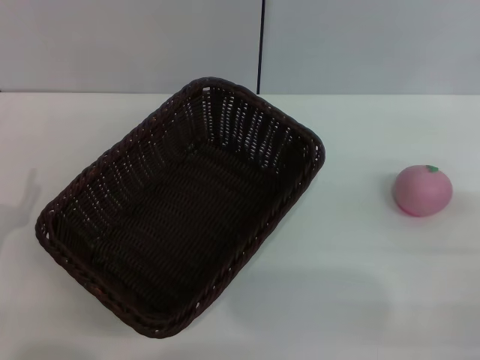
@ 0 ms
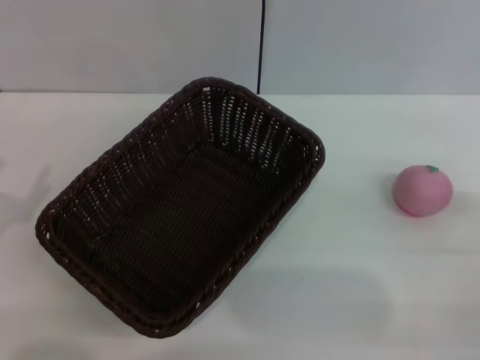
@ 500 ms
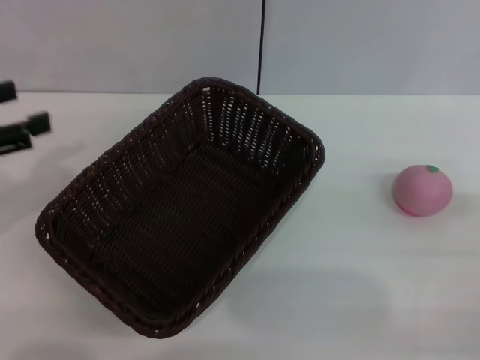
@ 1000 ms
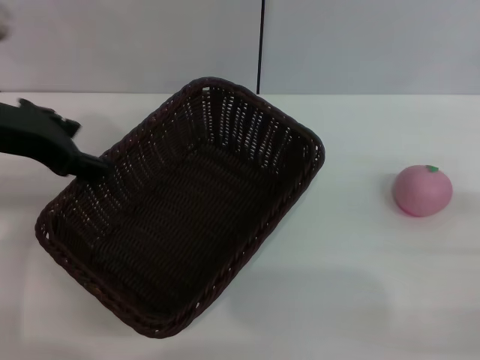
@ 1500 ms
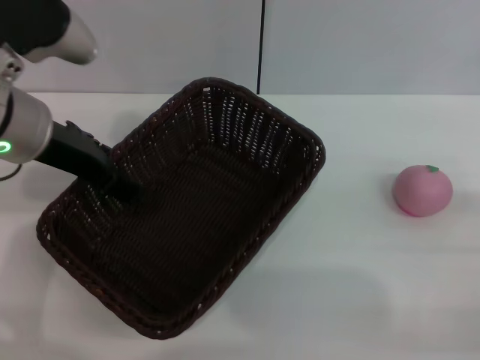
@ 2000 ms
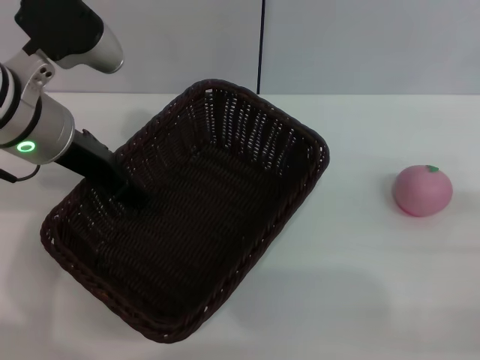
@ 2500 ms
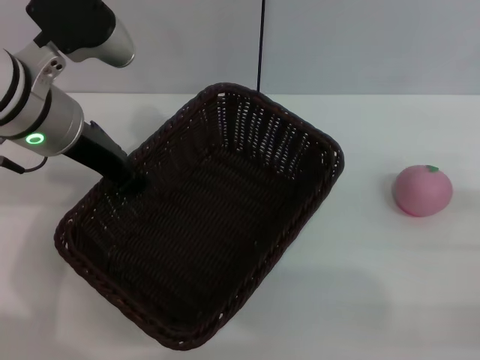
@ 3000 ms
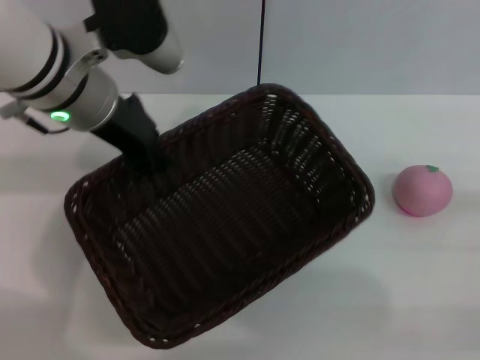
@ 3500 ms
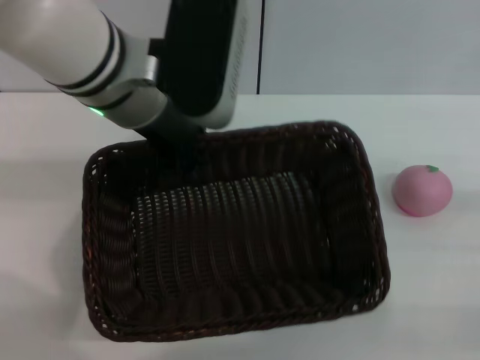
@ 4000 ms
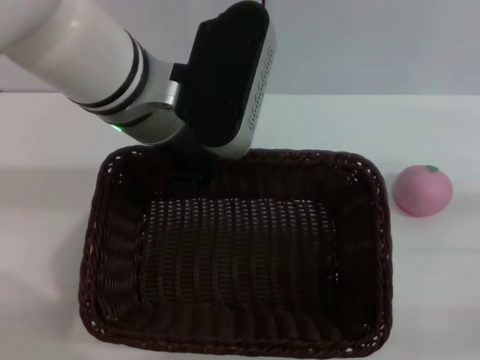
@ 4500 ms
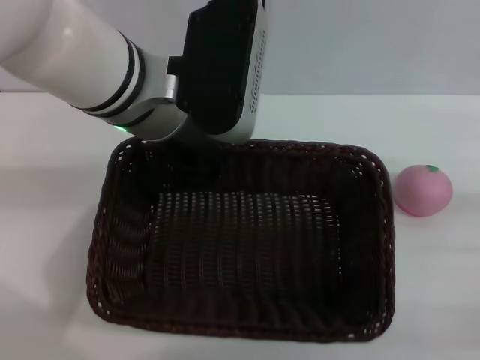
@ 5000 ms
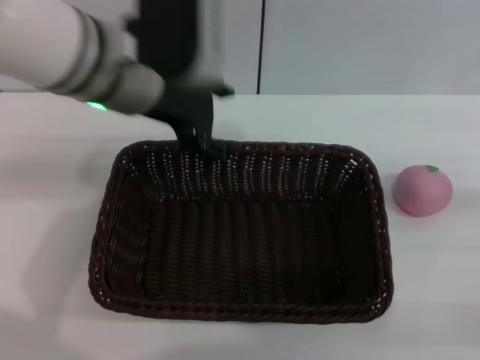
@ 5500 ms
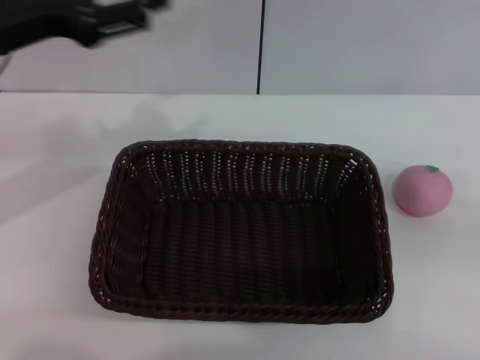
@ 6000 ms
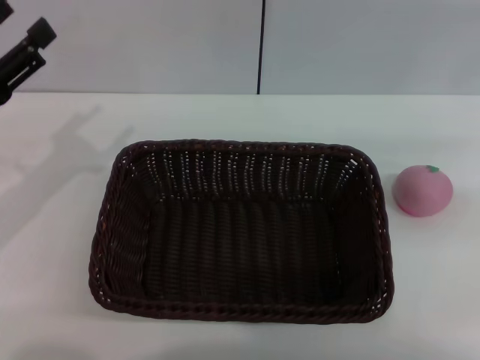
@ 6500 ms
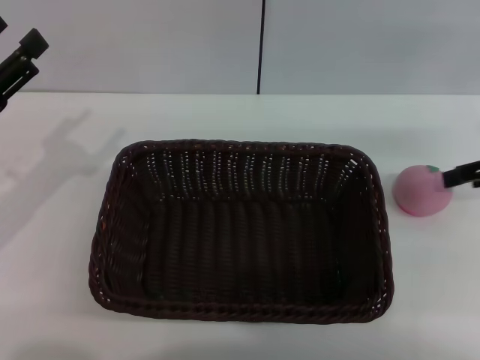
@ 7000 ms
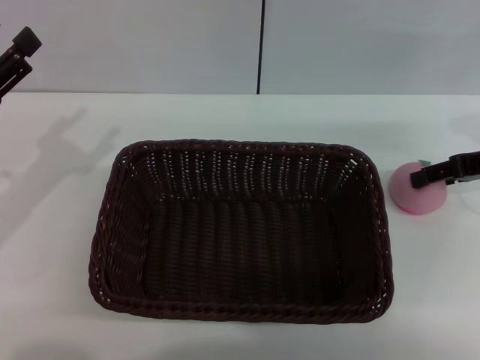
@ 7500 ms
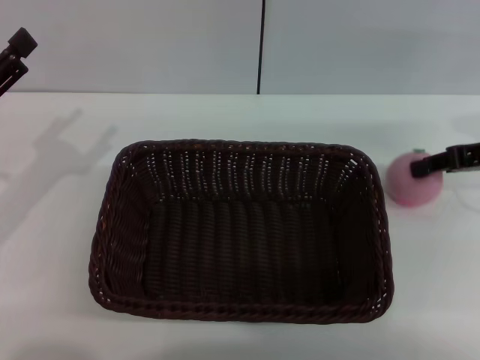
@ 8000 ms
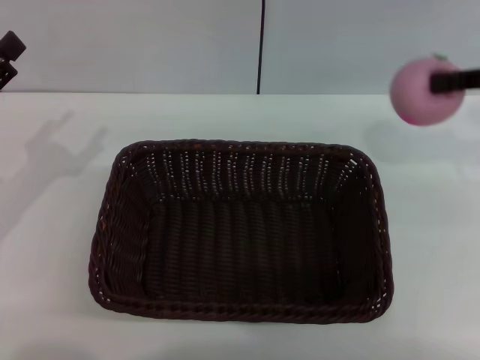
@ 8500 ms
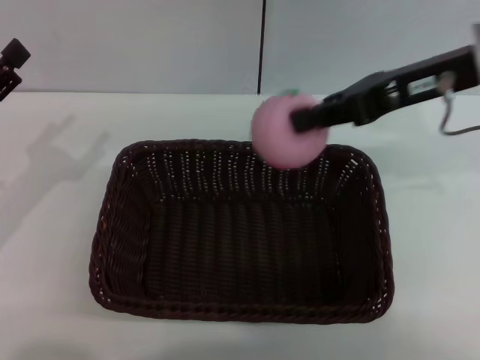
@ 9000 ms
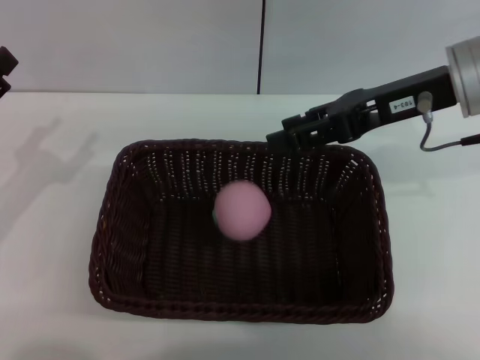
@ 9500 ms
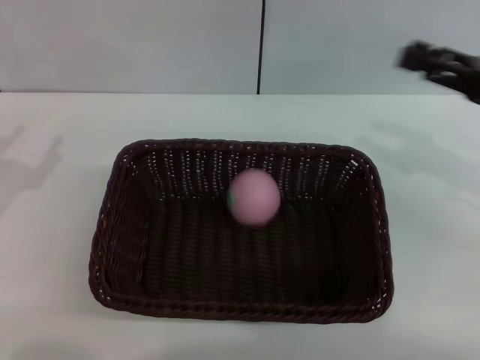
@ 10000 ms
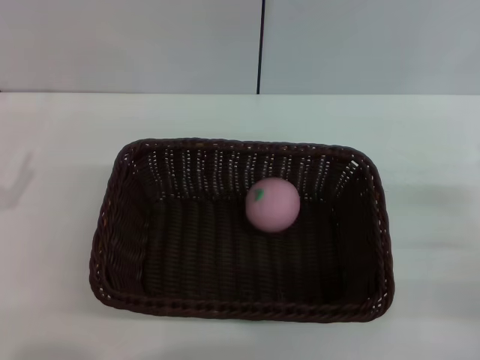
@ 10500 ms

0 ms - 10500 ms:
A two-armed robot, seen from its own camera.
Step, 0 ms - 4000 ms: Pick up the dark basket with the left gripper.
Step, 4500 ms - 5500 ms: Place the dark basket in the center of view with the right gripper.
Step, 6000 ms - 8000 ms: Pick up the peach with the left gripper.
0 ms - 2000 ms: The left gripper shifts approximately 25 cm upward, forward and to the right.
2000 ms - 4000 ms: The left gripper is displaced to the right by approximately 10 cm, and closes.
4000 ms - 6500 ms: The left gripper moves to the left and downward, about 25 cm, and opens up, while the right gripper is displaced upward and forward by roughly 20 cm.
6500 ms - 8500 ms: The right gripper goes about 10 cm to the left, reaches roughly 10 cm downward, then returns, and closes.
8500 ms - 10500 ms: The left gripper is displaced downward and backward by approximately 10 cm, while the right gripper shifts about 25 cm downward and backward, and opens up.

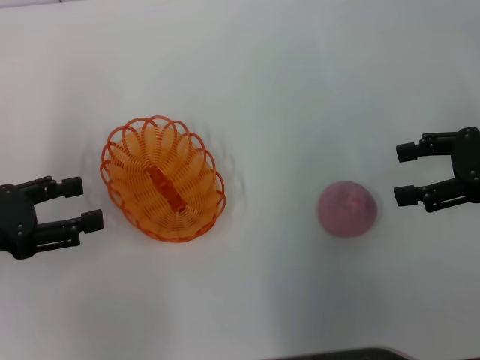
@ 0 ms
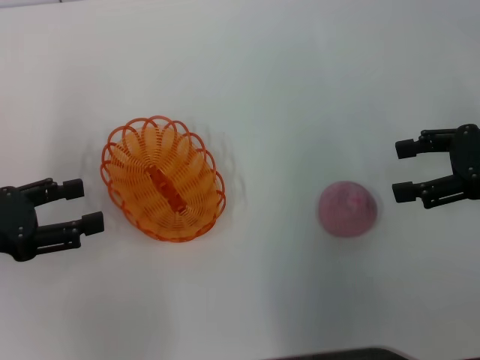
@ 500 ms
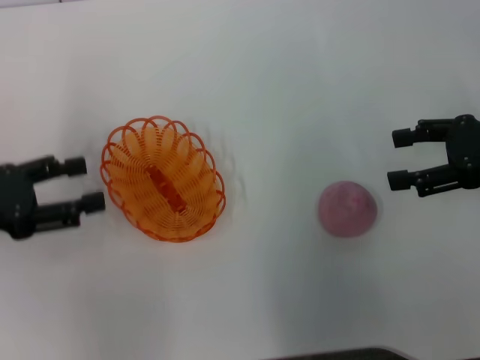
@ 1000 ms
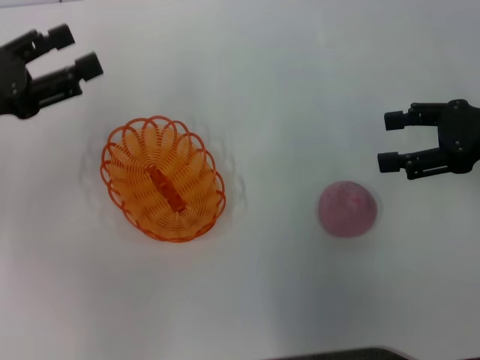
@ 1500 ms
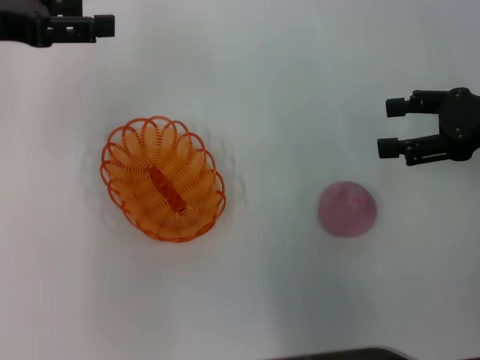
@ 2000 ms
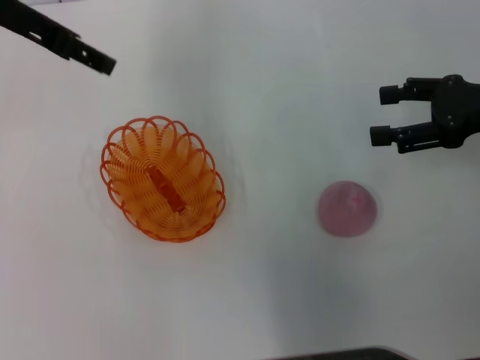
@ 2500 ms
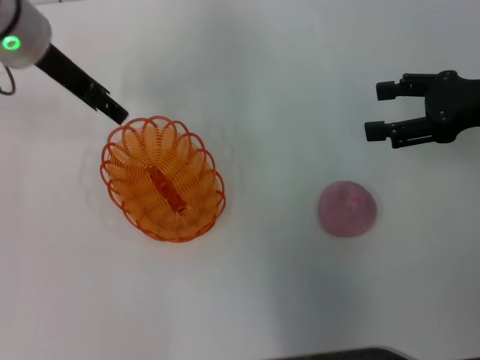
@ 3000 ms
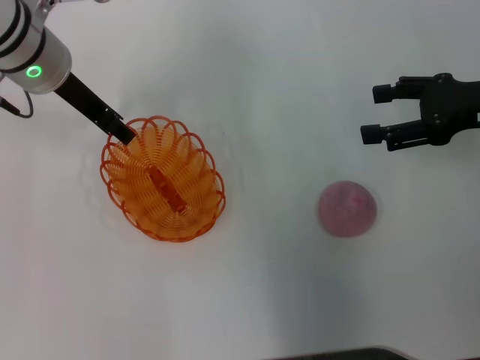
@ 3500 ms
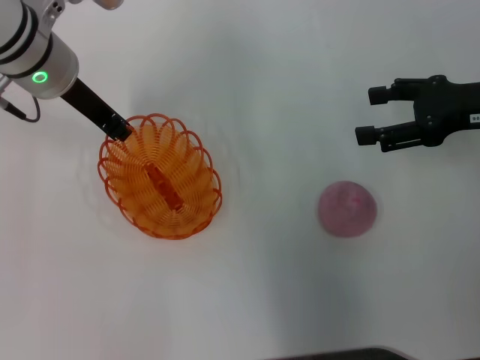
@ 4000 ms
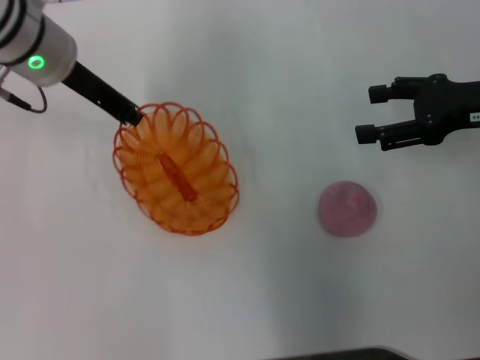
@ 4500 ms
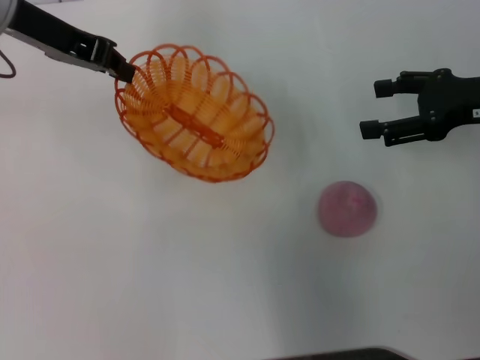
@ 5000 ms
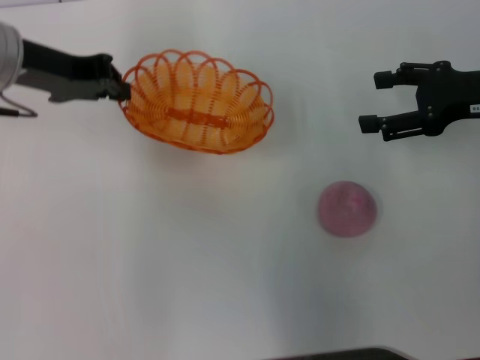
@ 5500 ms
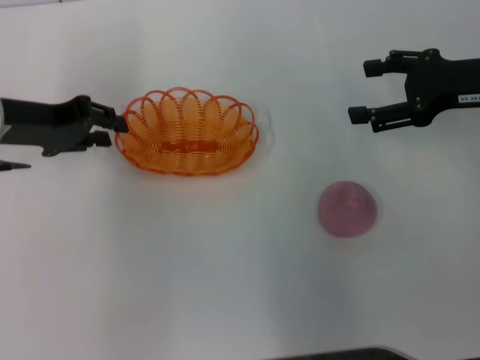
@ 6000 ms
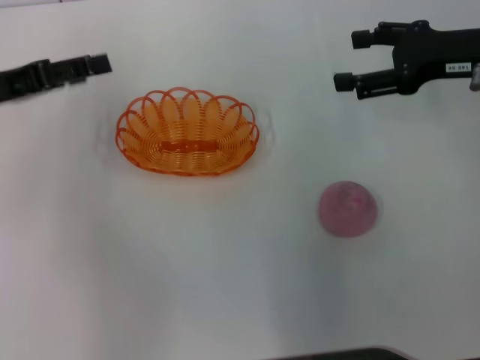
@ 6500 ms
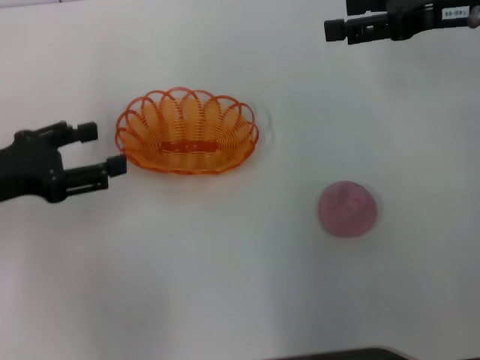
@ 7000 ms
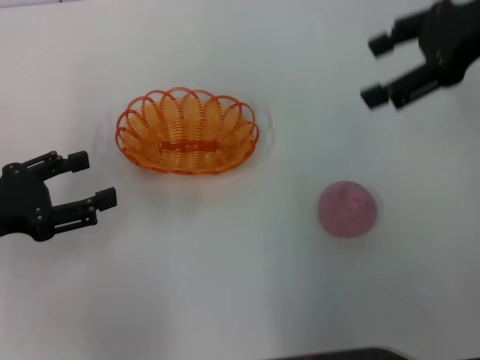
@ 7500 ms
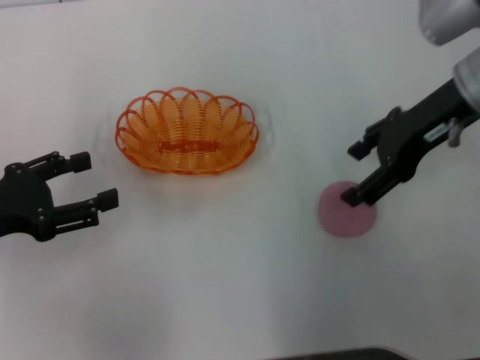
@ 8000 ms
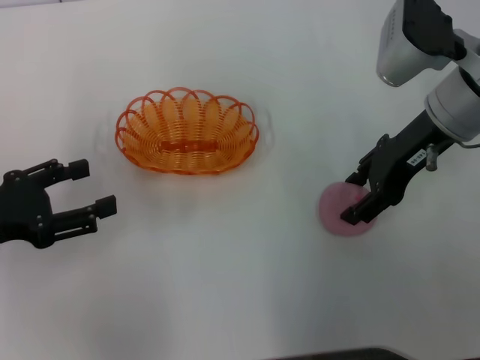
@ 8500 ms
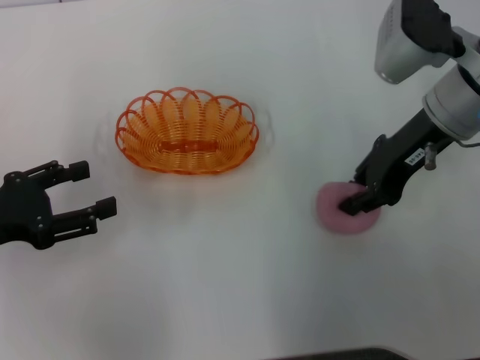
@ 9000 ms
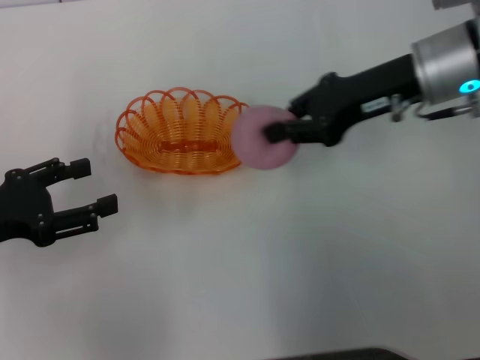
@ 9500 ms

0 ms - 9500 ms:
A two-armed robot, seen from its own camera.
Step, 0 ms - 4500 ms: Pick up the basket with the left gripper.
Step, 5000 ms - 6000 ms: Place the basket in the center of view with the left gripper.
Step, 6500 ms - 9000 ms: Pick up the peach with the right gripper.
0 ms - 2000 ms: The left gripper is displaced forward and upward by approximately 20 cm.
2000 ms - 4000 ms: The left gripper travels to the right and downward by approximately 10 cm, and closes up.
4000 ms - 5500 ms: The left gripper shifts some 5 cm to the left, and closes.
5500 ms - 7500 ms: The left gripper moves backward, to the left and downward, roughly 20 cm, and opens up. The right gripper shifts about 10 cm upward.
7500 ms - 9500 ms: The right gripper shifts approximately 10 cm downward and to the left, and closes its fingers.

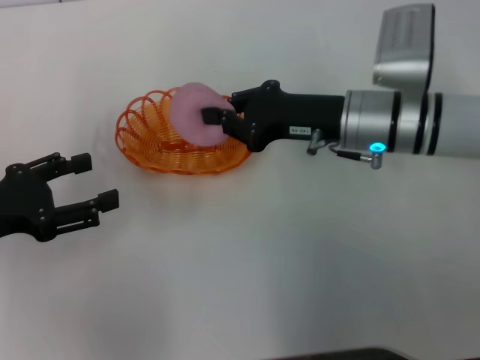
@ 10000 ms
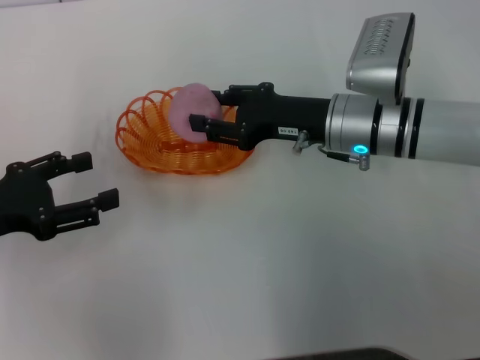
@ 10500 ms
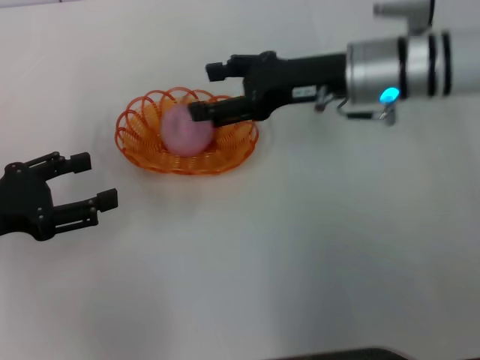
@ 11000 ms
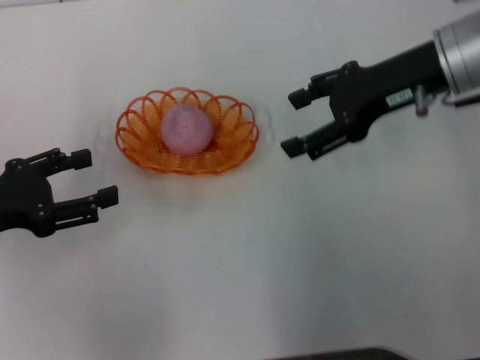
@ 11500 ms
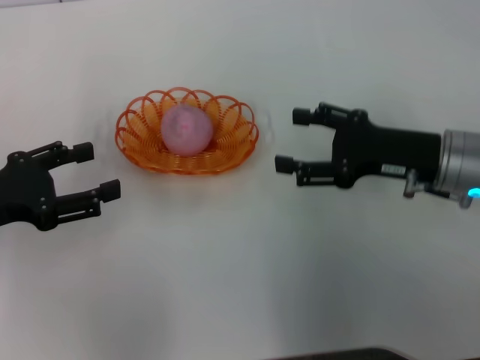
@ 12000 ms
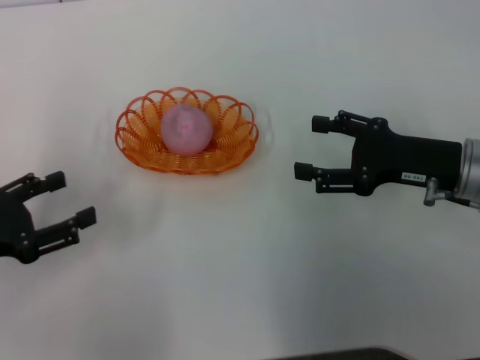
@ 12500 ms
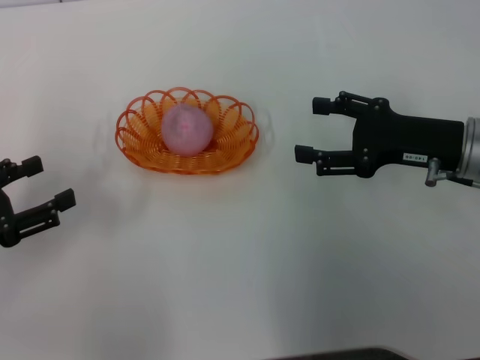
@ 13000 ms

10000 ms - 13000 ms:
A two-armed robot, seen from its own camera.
Step, 10000 ms - 11000 ms: Place the peach into the basket with the right gripper.
10000 ms - 11500 ms: The right gripper heads upward and to the right, covering some 10 cm, and opens its fingers.
11500 ms - 13000 ms: The right gripper travels downward and backward by approximately 10 cm.
